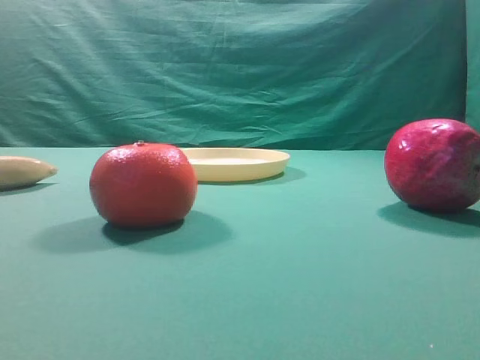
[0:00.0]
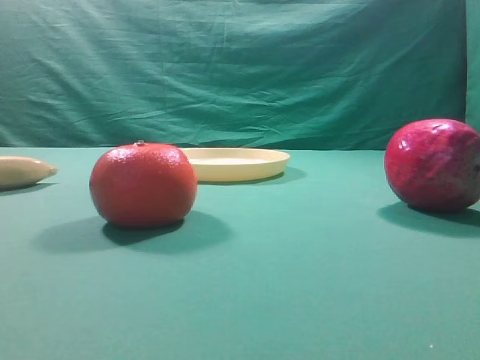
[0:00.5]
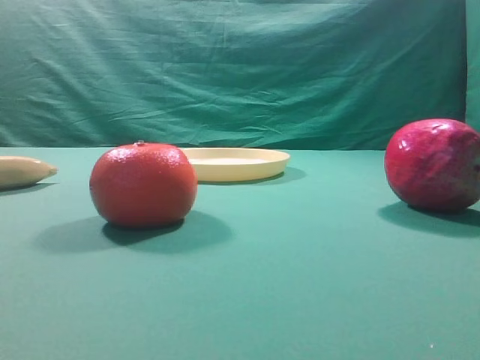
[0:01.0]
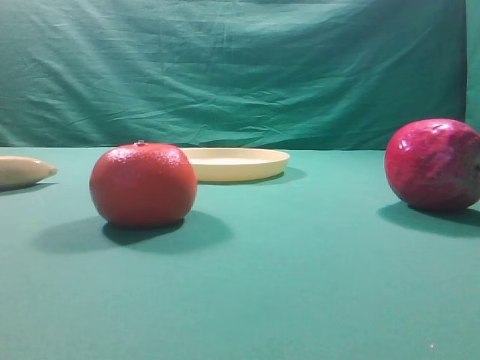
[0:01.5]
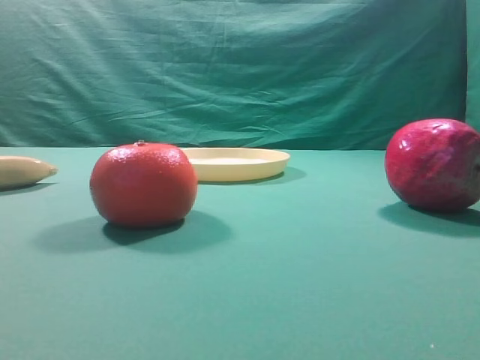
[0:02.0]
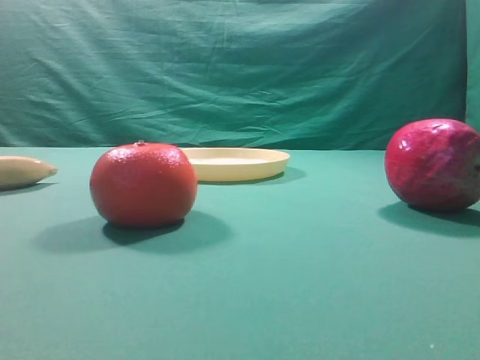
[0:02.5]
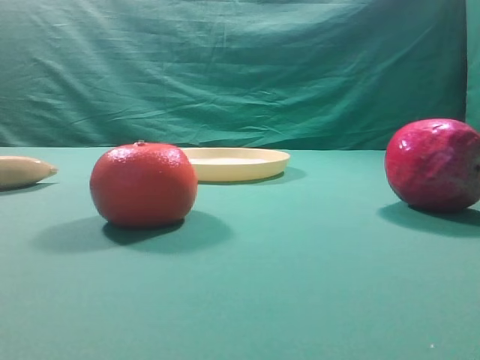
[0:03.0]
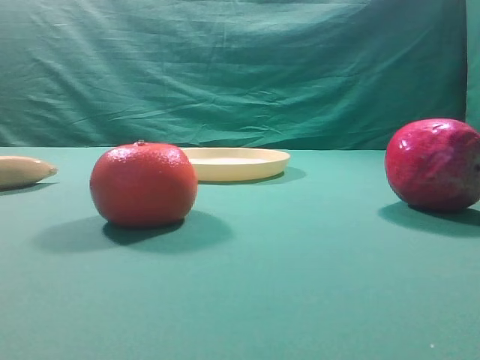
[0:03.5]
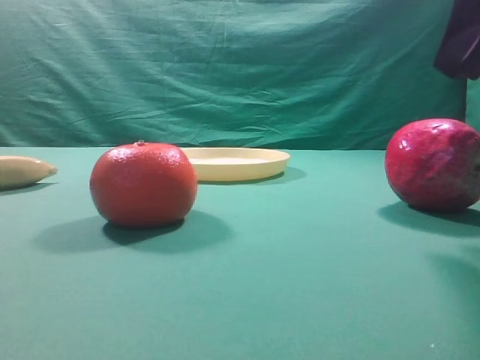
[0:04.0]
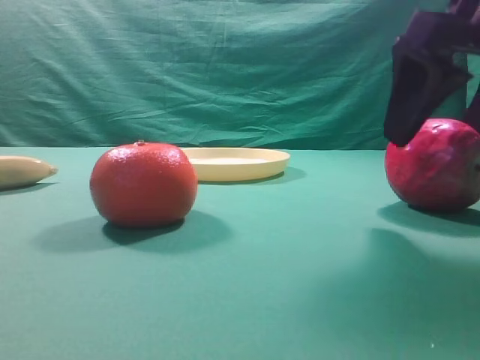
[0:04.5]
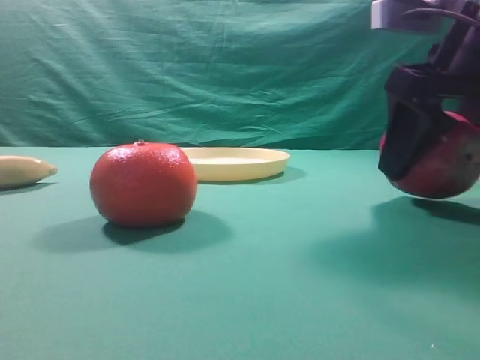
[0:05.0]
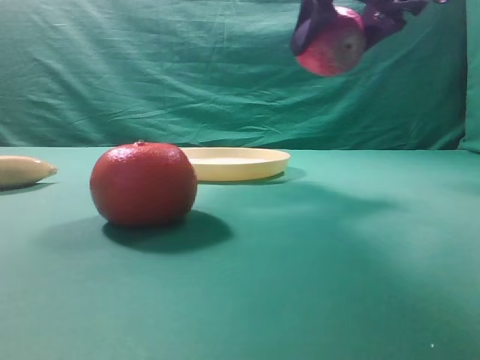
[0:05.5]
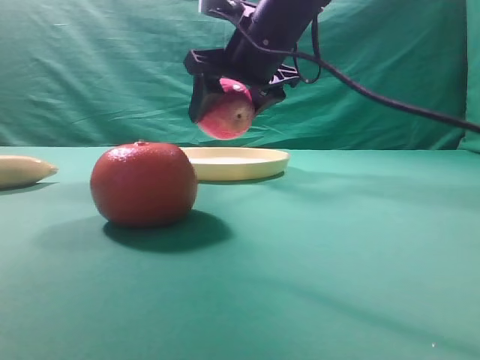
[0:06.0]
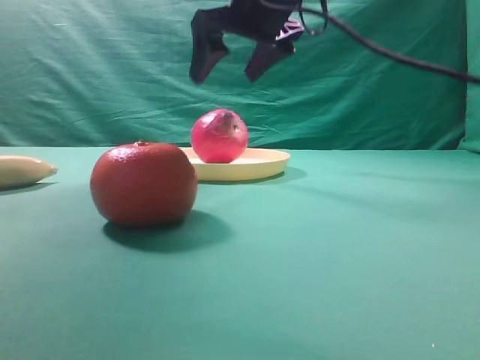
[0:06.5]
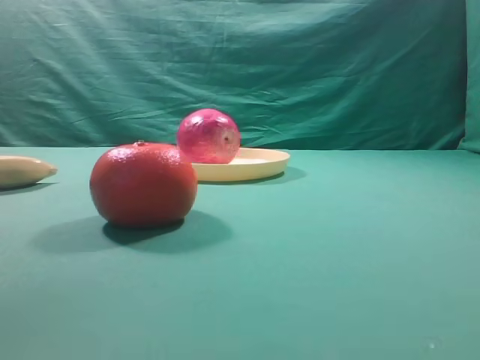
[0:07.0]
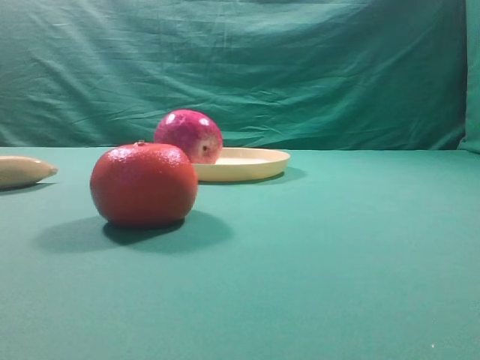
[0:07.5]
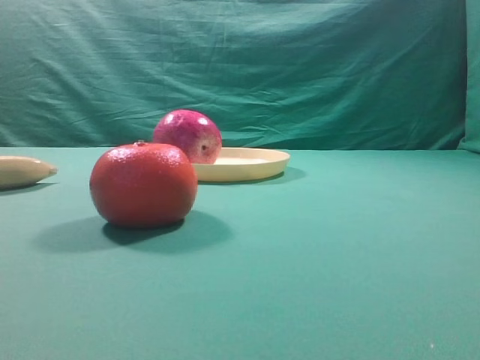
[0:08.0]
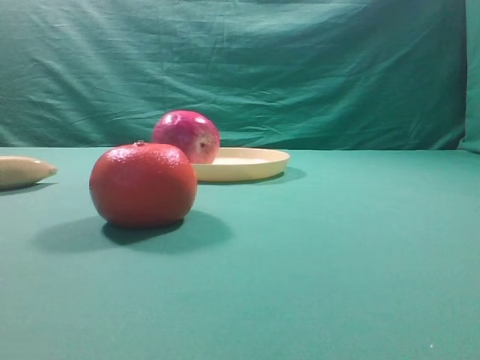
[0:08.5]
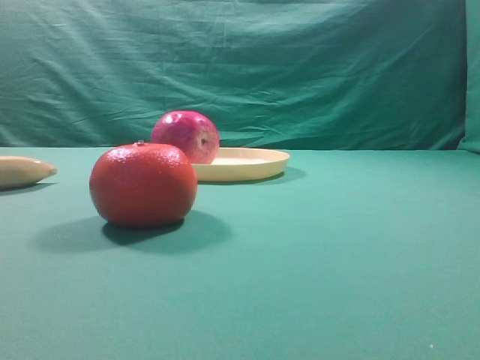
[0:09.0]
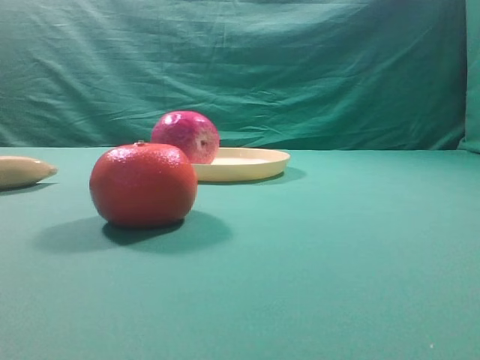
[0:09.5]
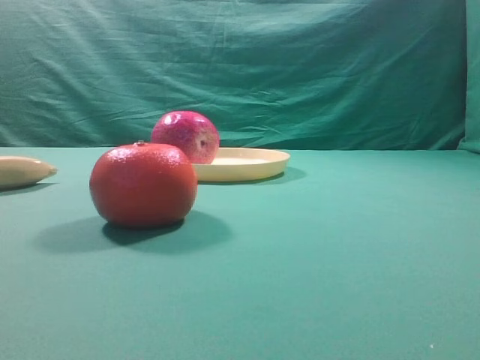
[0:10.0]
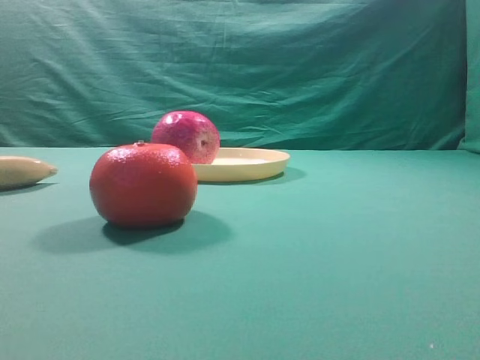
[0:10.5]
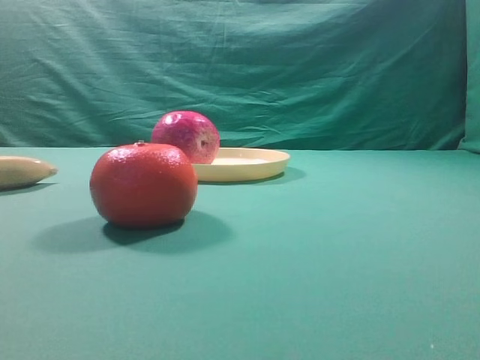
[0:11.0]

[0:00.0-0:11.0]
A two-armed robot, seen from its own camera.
Task of the whole recording: grasp the apple and place it into the yellow plate.
Step, 0:00.0 to 0:05.0: Grasp the fruit that can keep the doctor away.
Step, 0:05.5 to 0:06.0: Place the picked object into the yellow plate.

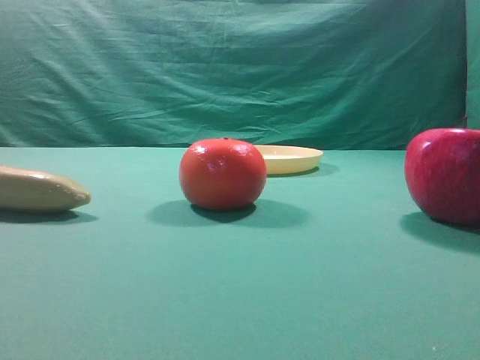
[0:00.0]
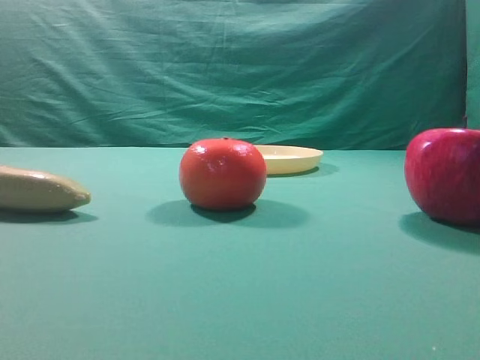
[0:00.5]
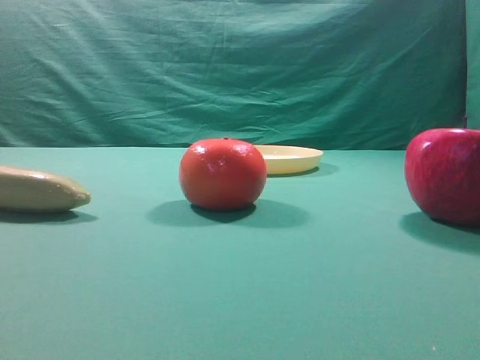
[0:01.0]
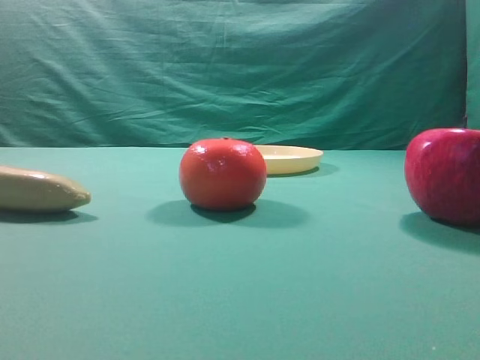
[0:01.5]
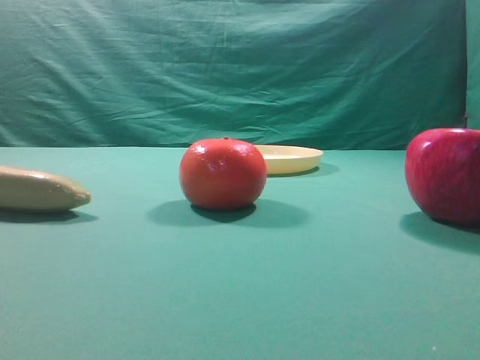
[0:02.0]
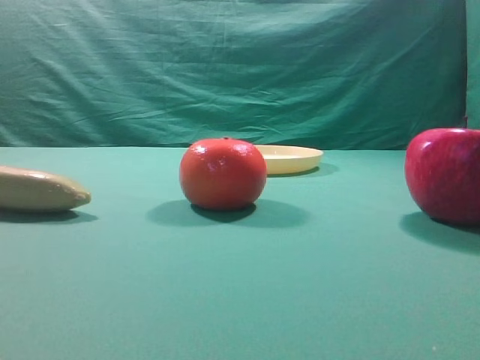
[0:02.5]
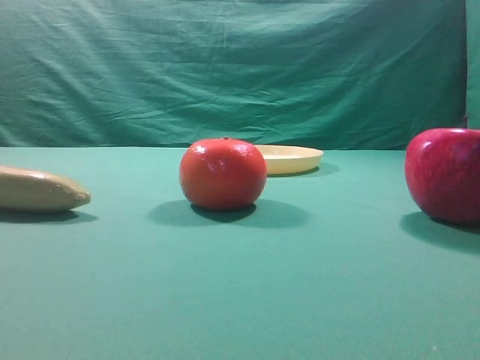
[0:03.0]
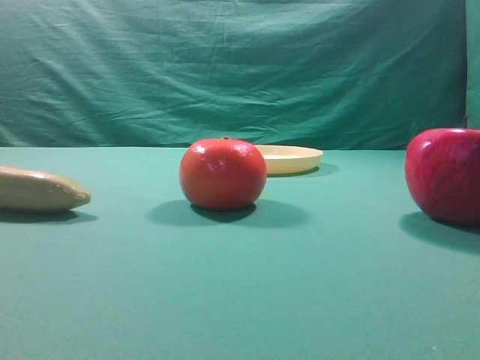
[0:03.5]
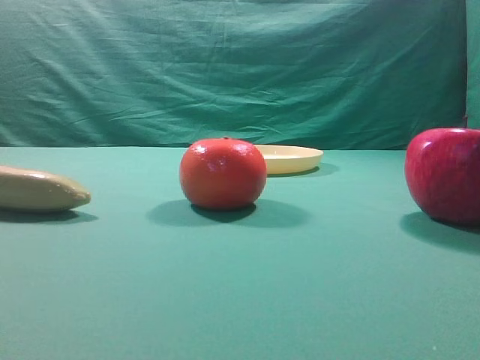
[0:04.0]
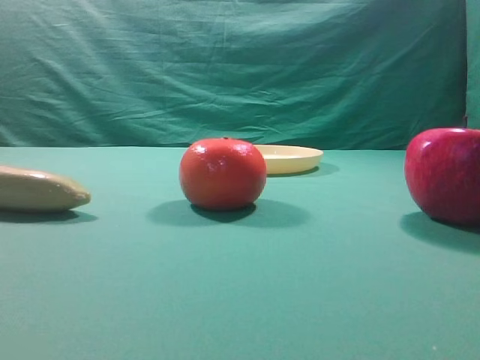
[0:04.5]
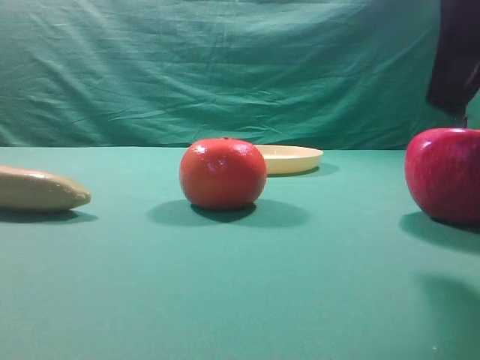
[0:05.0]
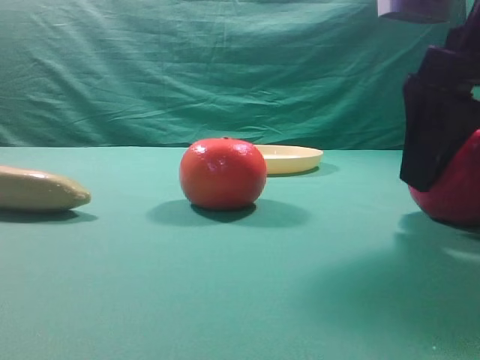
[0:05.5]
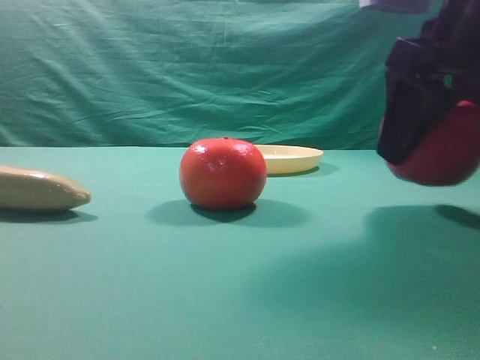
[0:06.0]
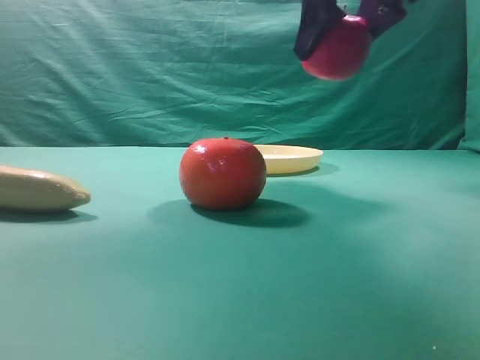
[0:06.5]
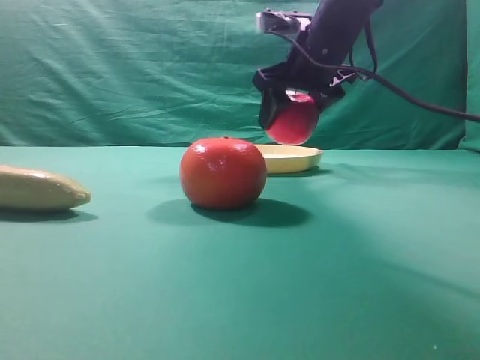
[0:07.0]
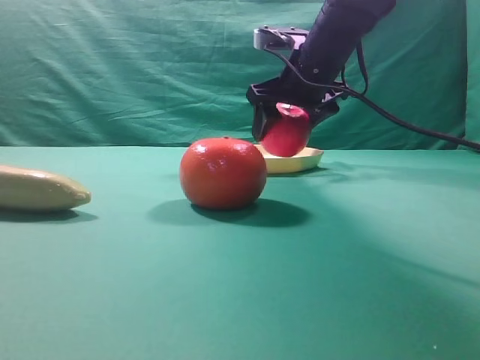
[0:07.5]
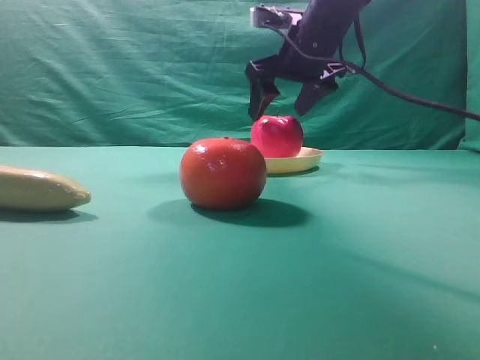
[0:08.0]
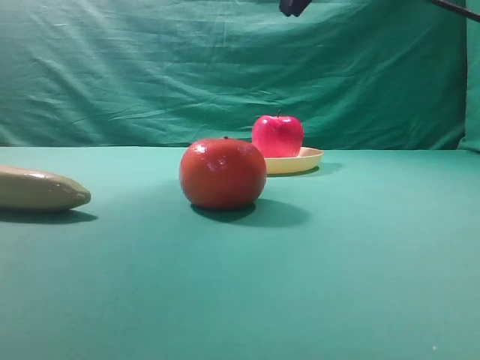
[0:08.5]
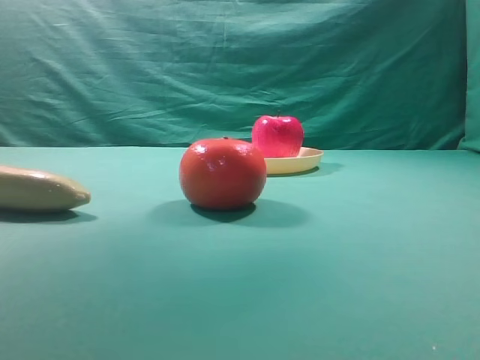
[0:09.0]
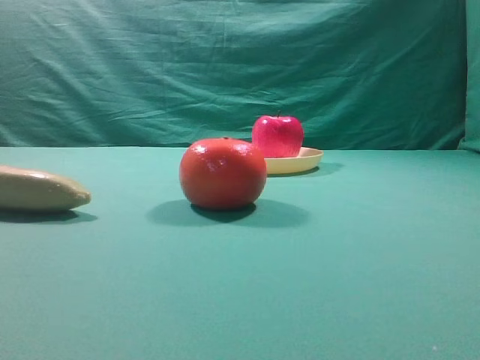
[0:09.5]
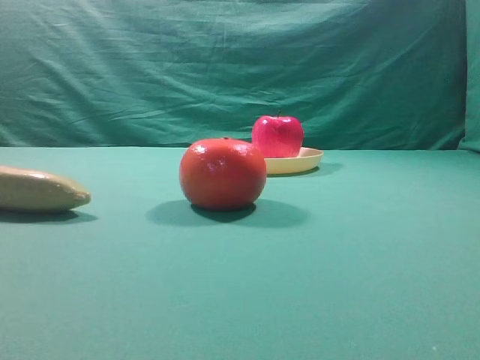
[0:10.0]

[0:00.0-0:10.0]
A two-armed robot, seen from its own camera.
Task of the whole recording: grasp the apple and place it into the yellow plate.
Step, 0:00.0 to 0:06.0: Grasp the fruit that can keep the doctor away.
Step, 0:06.5 to 0:08.0: Place the picked object into the yellow plate.
